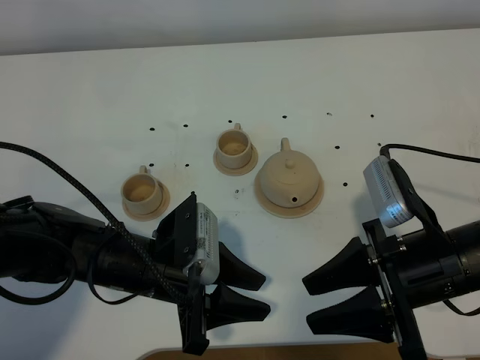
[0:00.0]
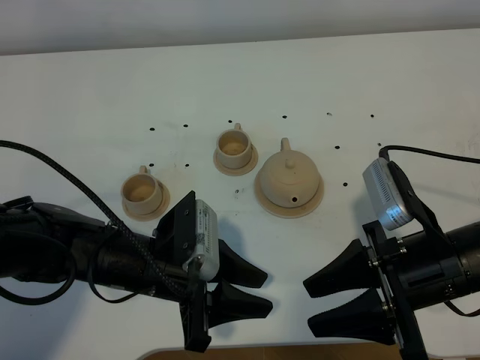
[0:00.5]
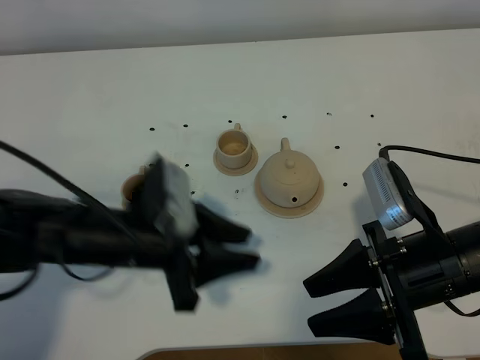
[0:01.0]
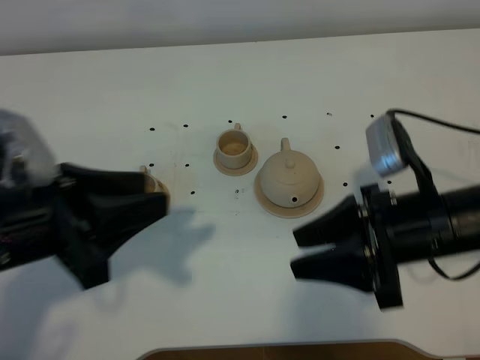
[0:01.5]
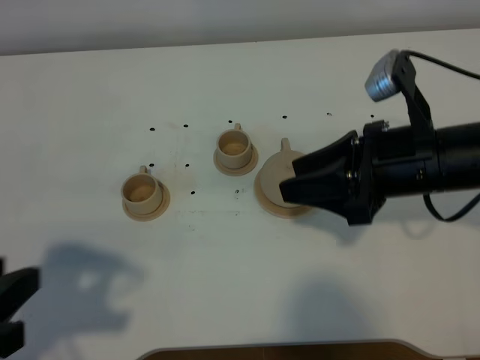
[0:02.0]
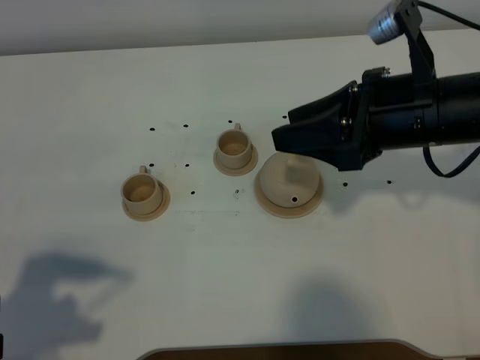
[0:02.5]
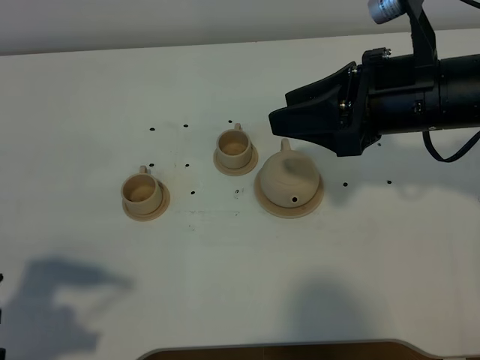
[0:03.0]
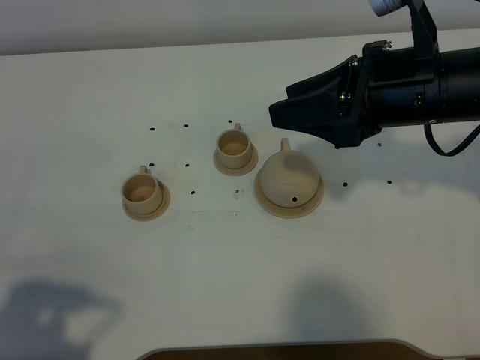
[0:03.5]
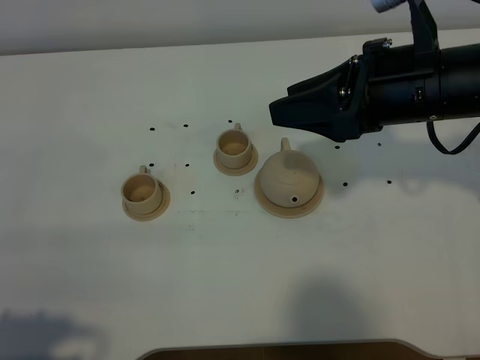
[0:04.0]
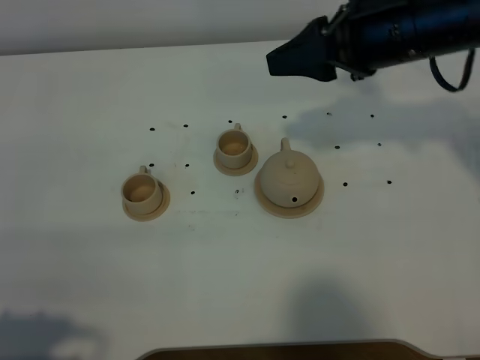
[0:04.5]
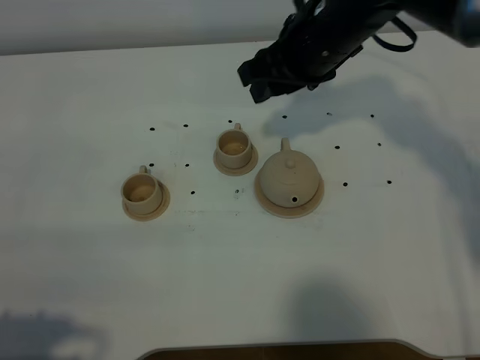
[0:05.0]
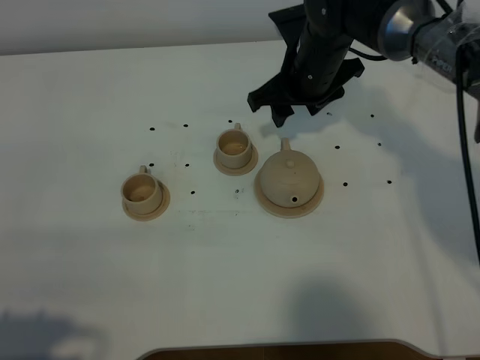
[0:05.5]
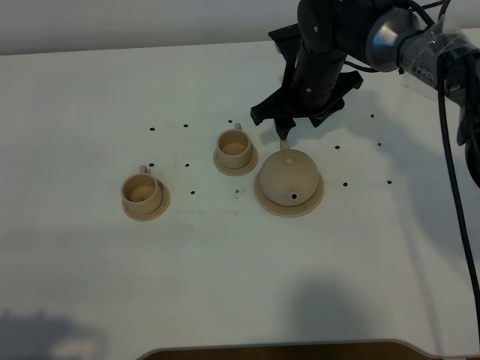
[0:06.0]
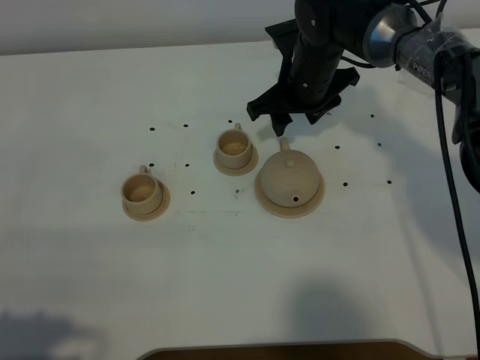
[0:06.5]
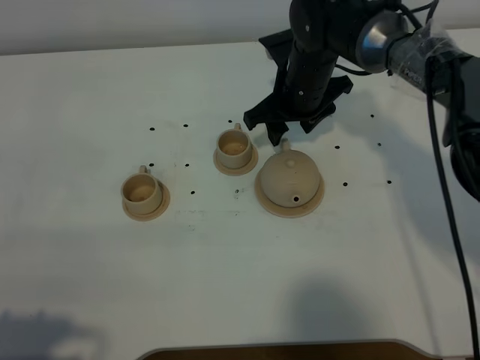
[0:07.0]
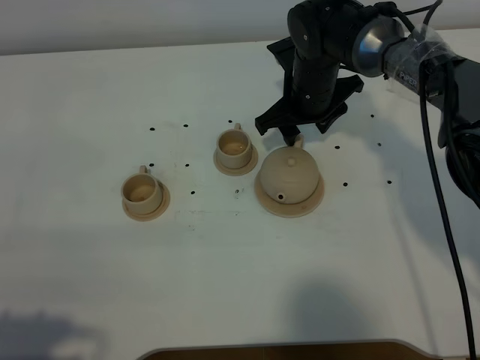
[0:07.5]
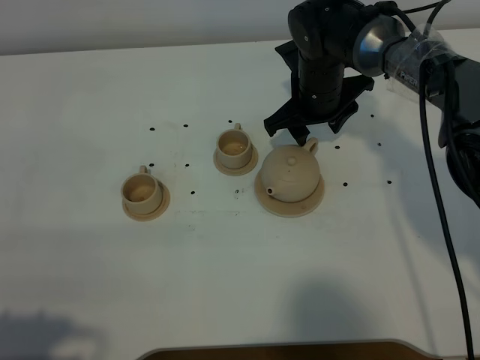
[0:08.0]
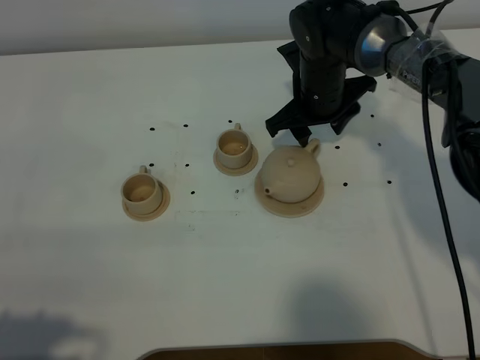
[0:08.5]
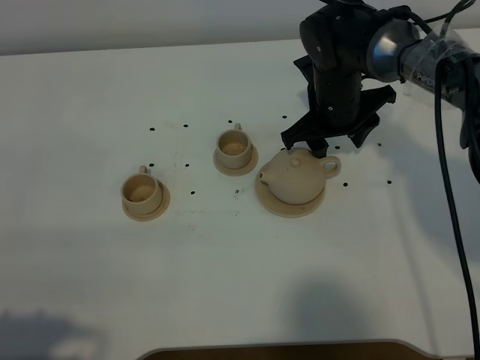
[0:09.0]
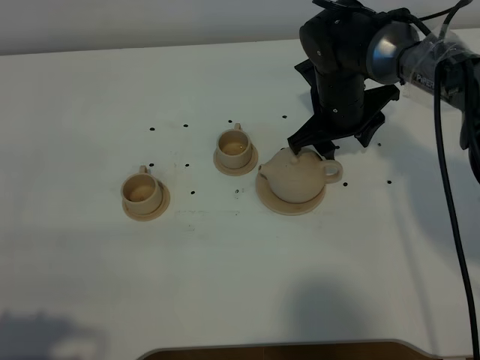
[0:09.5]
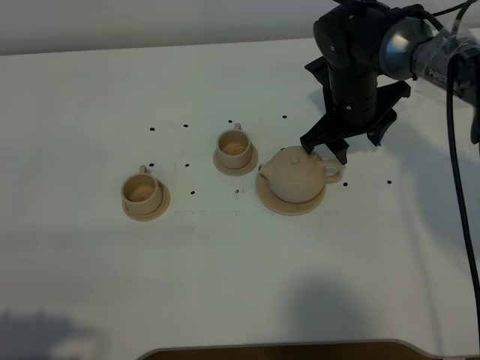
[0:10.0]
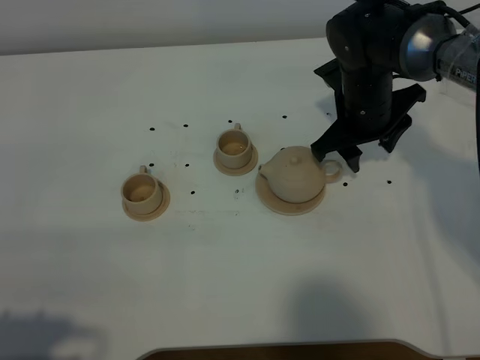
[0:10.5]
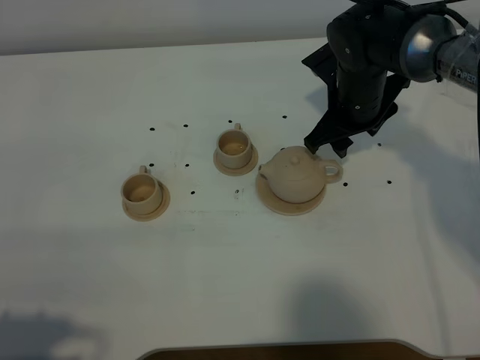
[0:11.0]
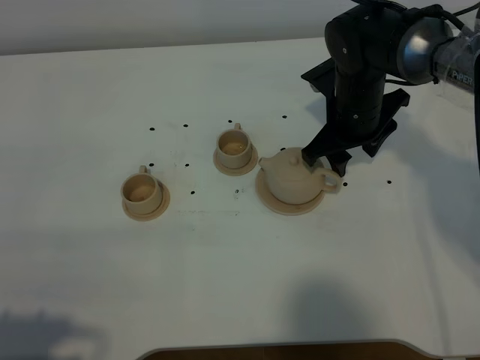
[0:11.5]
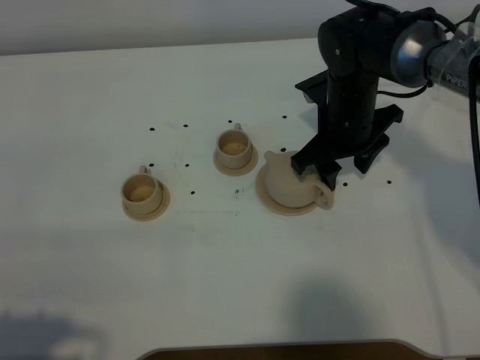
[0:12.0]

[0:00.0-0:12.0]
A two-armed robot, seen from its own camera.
Task of the whole recording: grasp the brown teapot and pour the tea into the two brown teacups one by one, put the brown teapot back in its original place.
0:00.0 to 0:02.0: The right gripper moves forward and upward, roughly 10 cm, while the left gripper heads upward, to the left and backward, covering some 25 cm.
0:02.0 to 0:04.0: The left gripper heads backward, covering about 10 cm. Meanwhile the right gripper is displaced upward by some 5 cm.
0:04.0 to 0:06.0: The right gripper is displaced forward and downward by roughly 20 cm.
0:06.0 to 0:10.0: There are only small adjustments of the grippers.
0:10.0 to 0:12.0: The grippers move only a little.

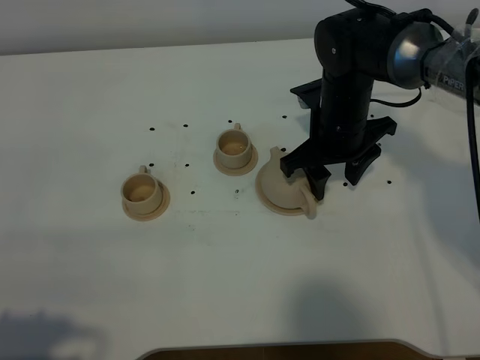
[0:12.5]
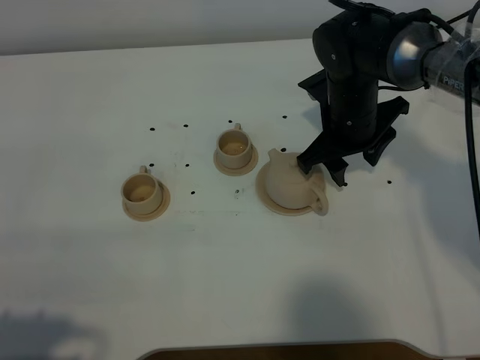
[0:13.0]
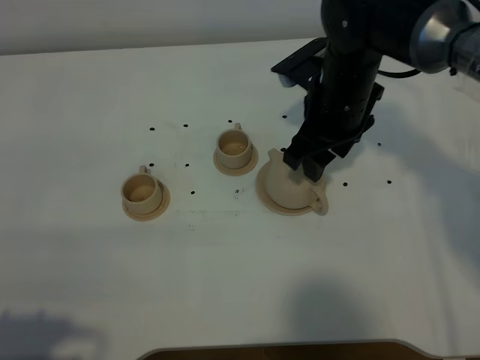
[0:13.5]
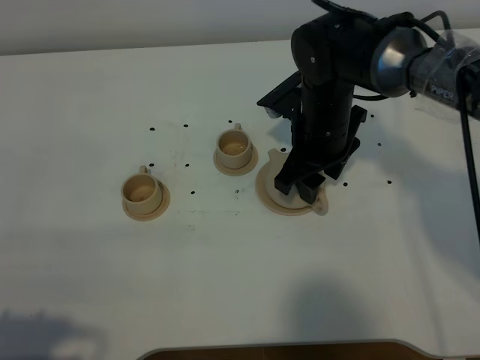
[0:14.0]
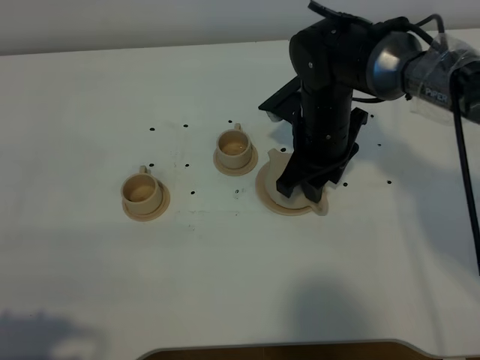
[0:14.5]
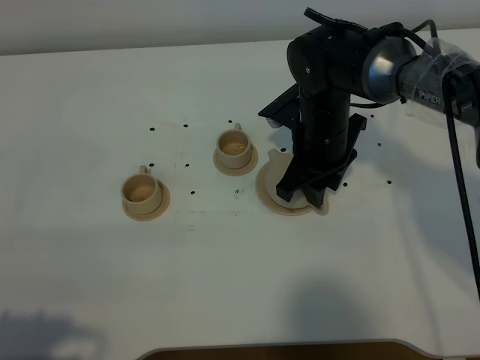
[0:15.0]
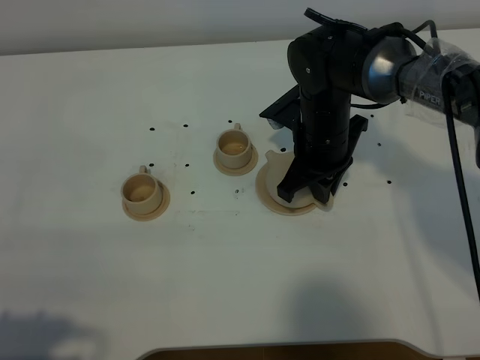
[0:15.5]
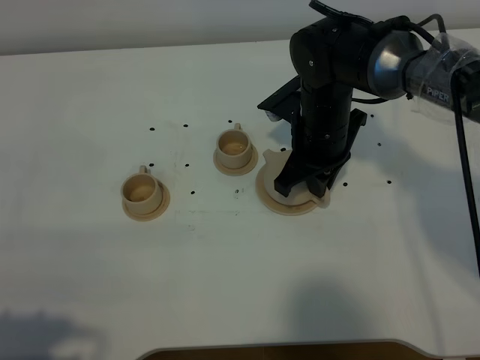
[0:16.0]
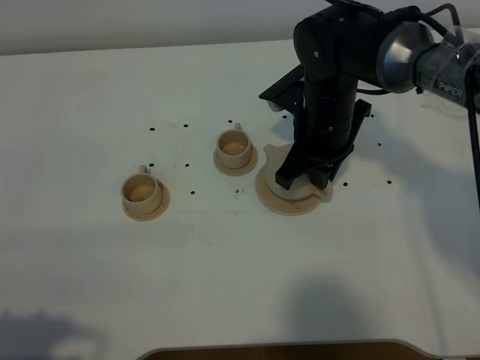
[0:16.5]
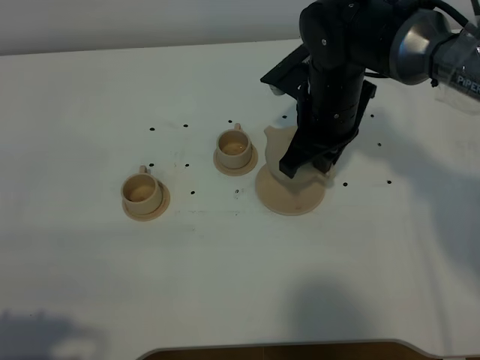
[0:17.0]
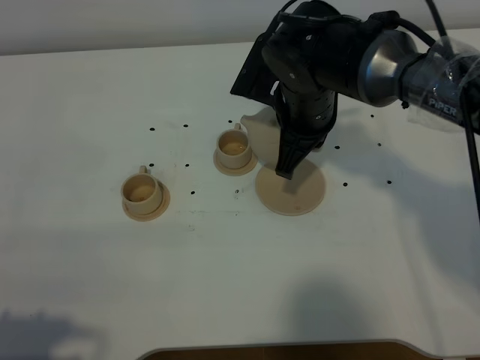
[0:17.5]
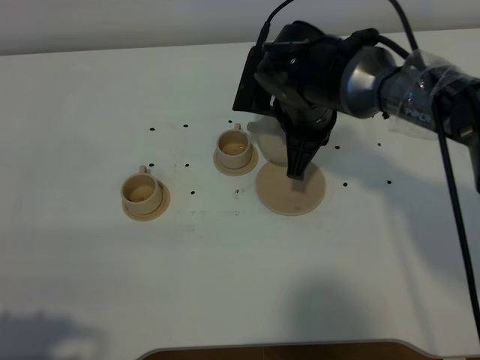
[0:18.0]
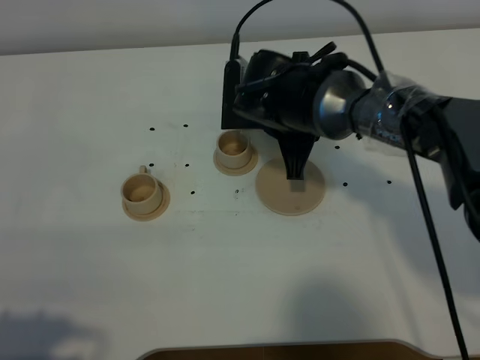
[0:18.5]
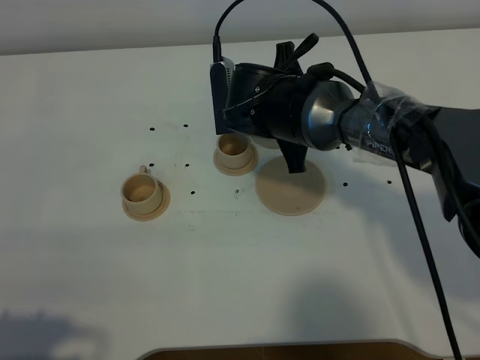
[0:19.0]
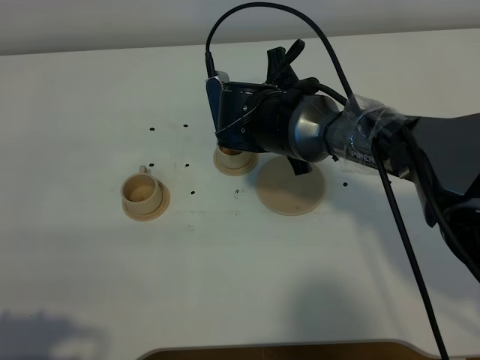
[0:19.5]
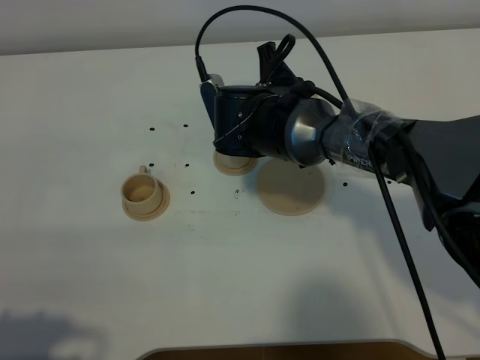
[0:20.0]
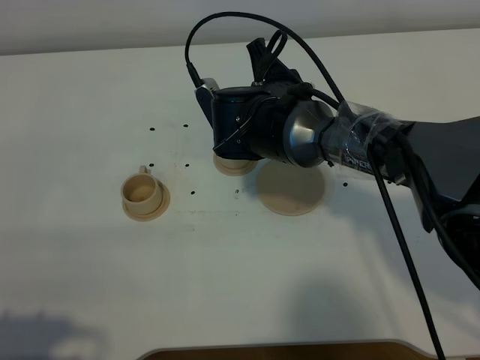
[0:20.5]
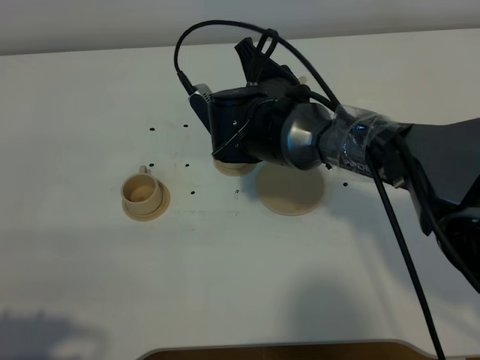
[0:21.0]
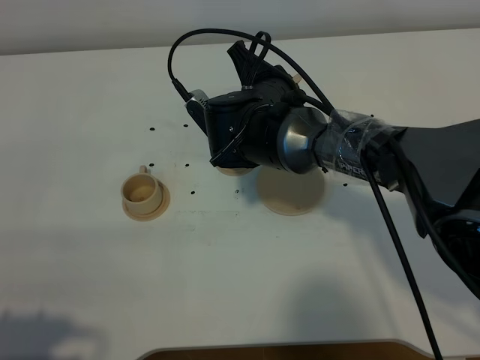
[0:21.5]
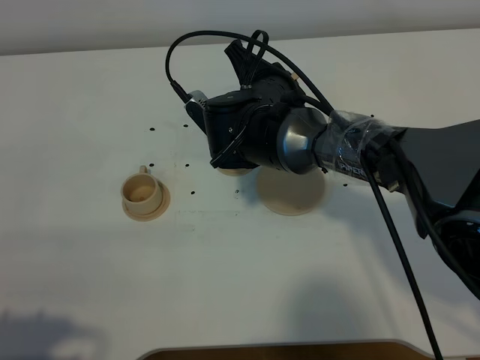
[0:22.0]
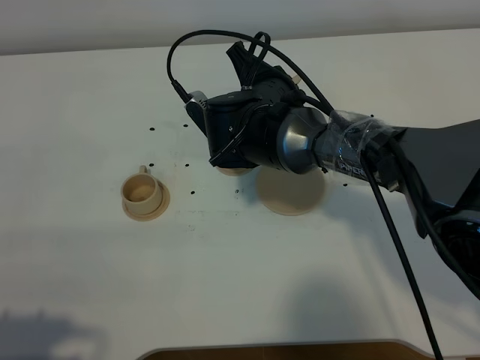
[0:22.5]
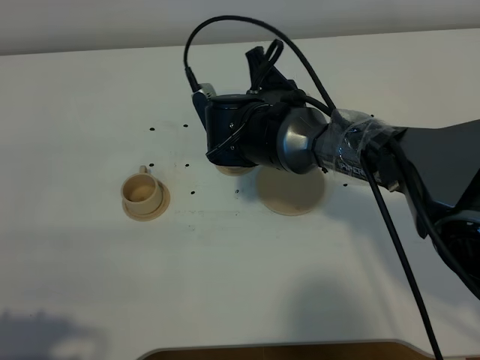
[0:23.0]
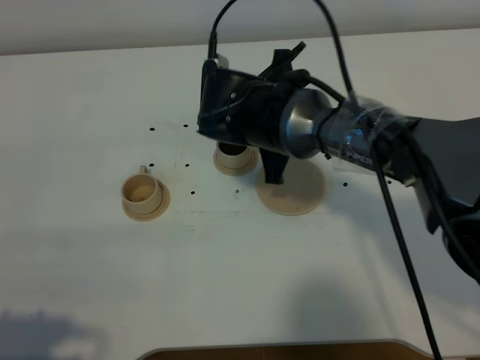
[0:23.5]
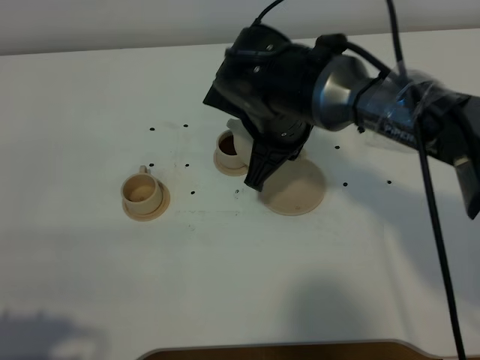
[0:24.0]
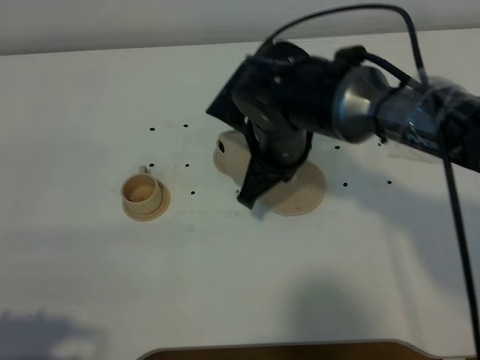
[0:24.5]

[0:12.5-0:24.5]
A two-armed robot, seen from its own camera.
Task of the whole recording: grasp the brown teapot and pour the tea into the two brown teacups one by one, put the brown teapot back in its original place.
Step, 0:12.5 to 0:16.5: Pick up the teapot with the right gripper.
Step, 0:17.0 to 0:23.5: Pour tea into the teacup with the right gripper.
0:14.5 to 0:16.5: The right gripper closes.
0:20.5 to 0:22.5: There are only small adjustments of the grippers.
0:22.5 to 0:24.5: The right gripper shifts by roughly 5 cm.

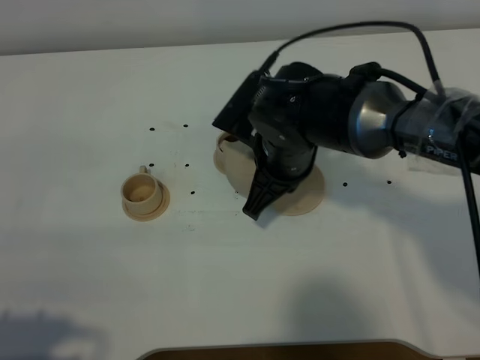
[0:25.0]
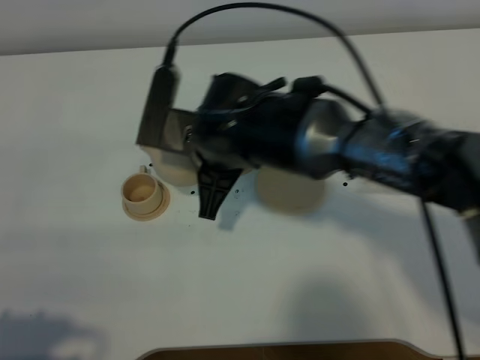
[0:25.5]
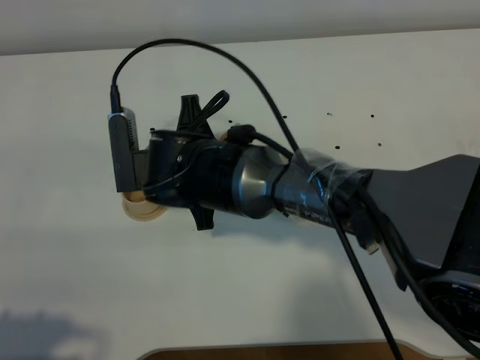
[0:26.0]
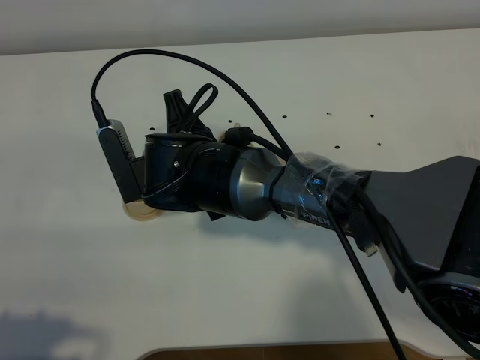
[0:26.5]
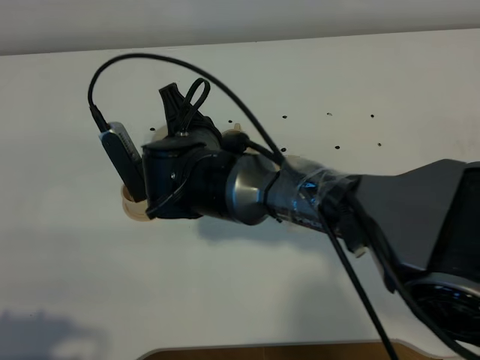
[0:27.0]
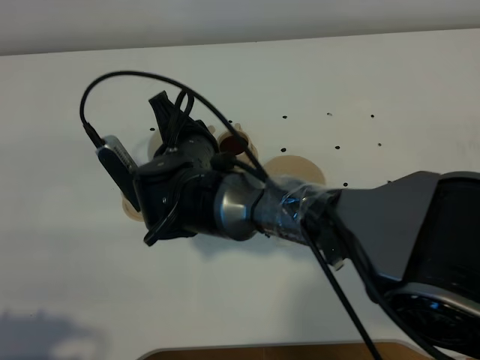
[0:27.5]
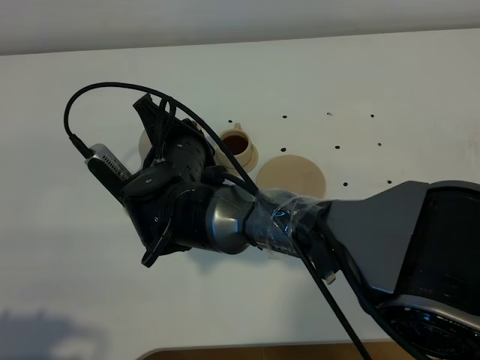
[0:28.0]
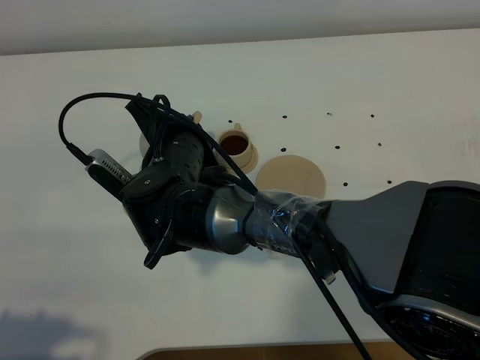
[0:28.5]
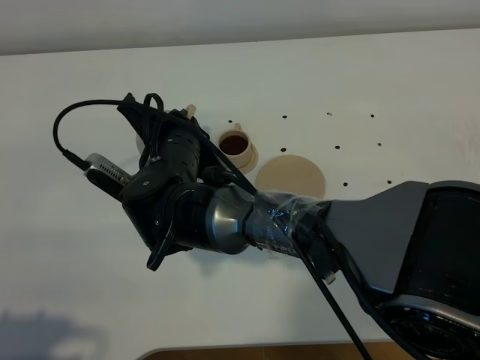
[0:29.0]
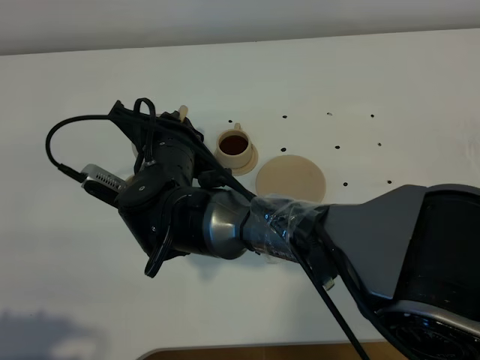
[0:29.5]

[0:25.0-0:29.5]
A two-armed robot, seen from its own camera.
Task of the whole recording: grasp the brown teapot and pour the tea into the two brown teacups one by one, put the brown teapot back in its original place.
0:25.0 to 0:27.0: The right gripper goes about 10 cm to the left.
